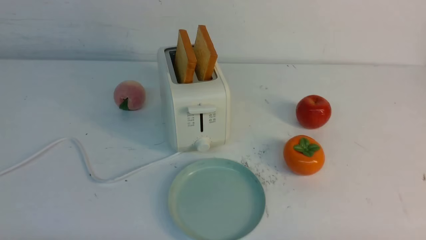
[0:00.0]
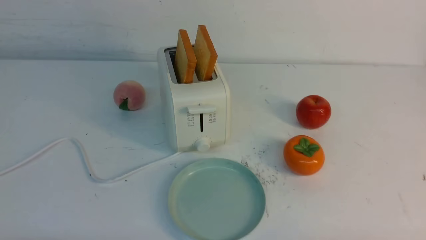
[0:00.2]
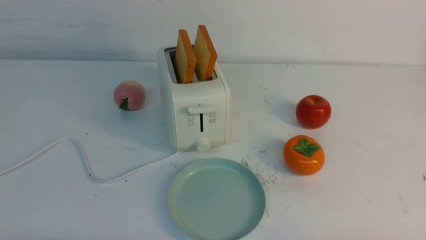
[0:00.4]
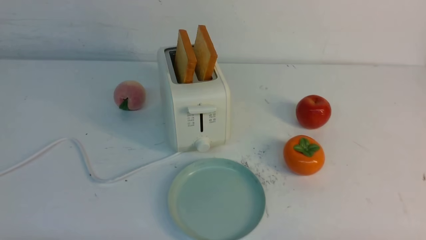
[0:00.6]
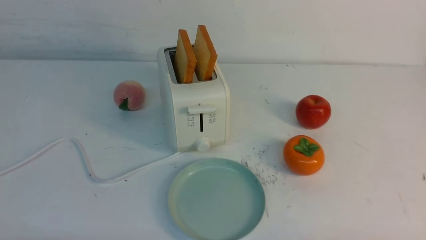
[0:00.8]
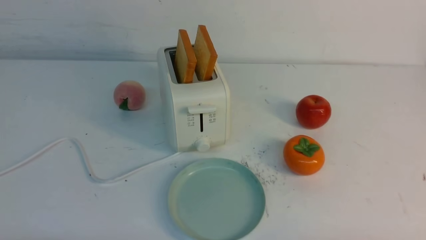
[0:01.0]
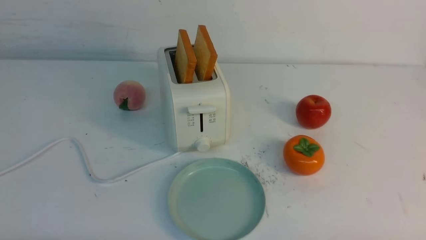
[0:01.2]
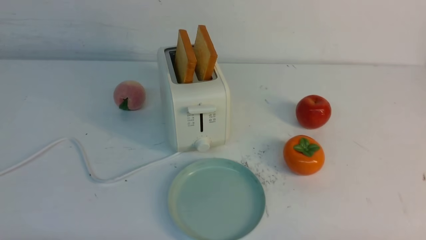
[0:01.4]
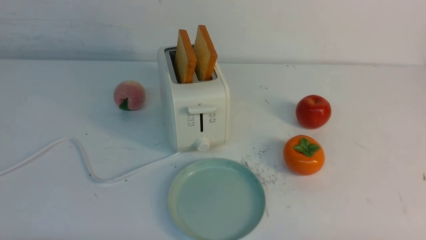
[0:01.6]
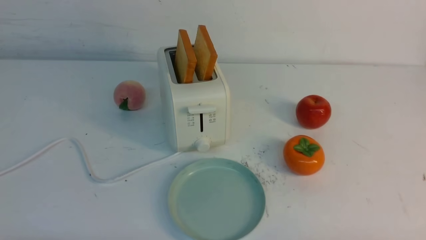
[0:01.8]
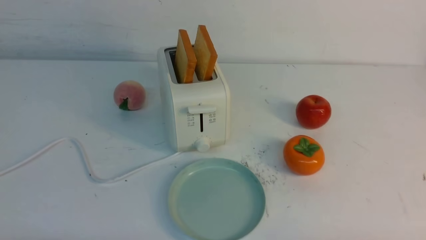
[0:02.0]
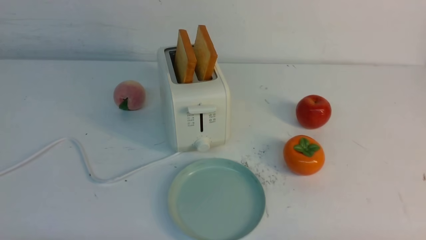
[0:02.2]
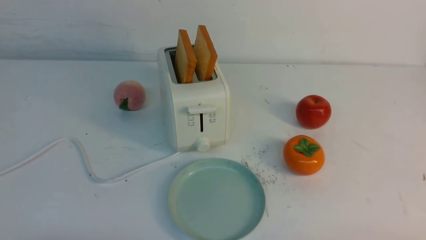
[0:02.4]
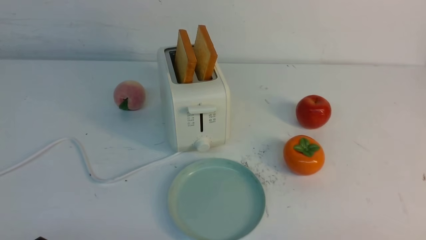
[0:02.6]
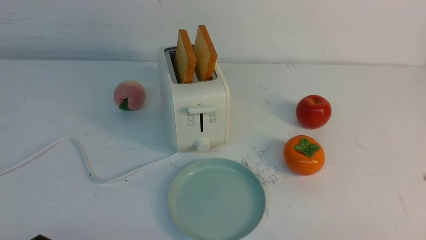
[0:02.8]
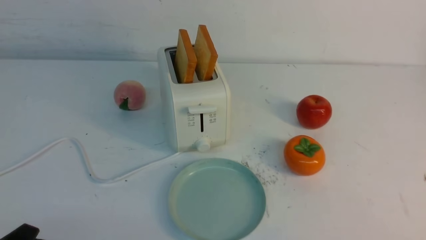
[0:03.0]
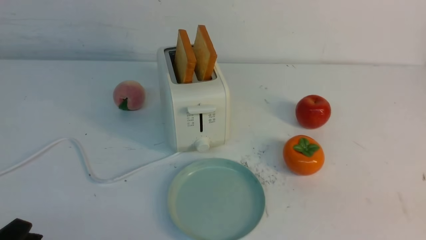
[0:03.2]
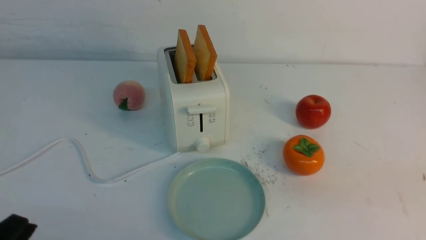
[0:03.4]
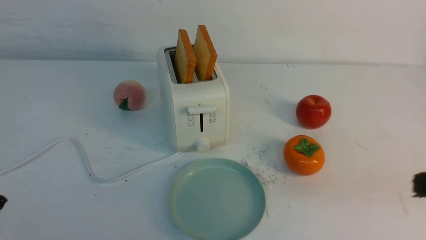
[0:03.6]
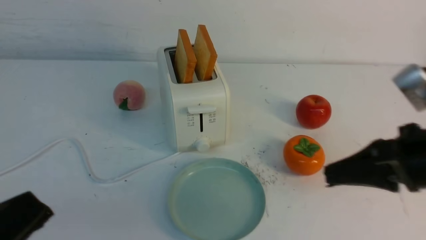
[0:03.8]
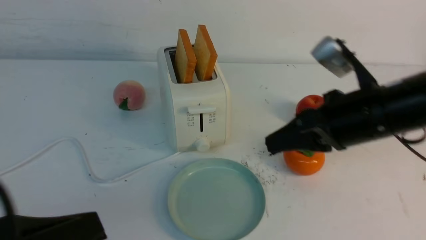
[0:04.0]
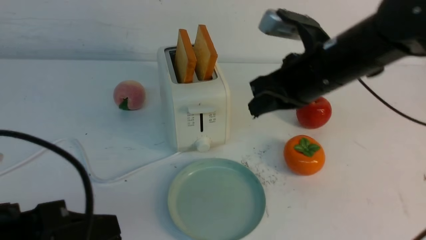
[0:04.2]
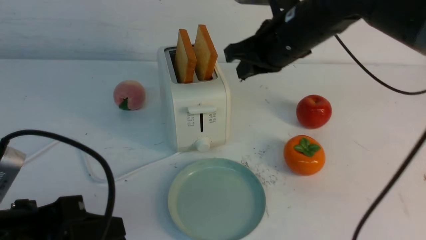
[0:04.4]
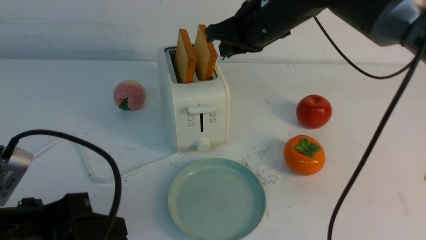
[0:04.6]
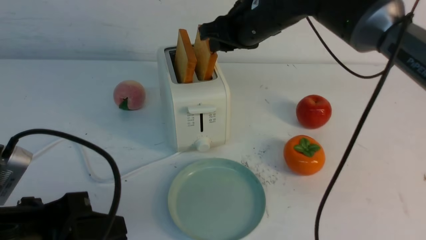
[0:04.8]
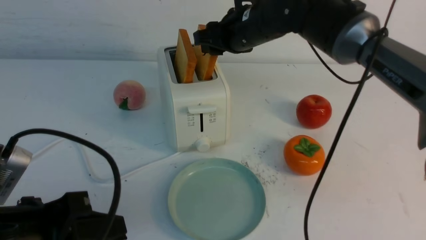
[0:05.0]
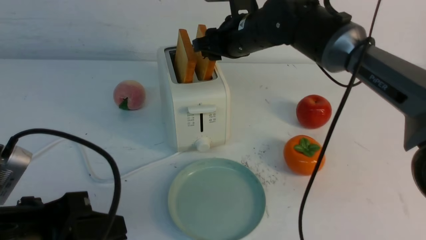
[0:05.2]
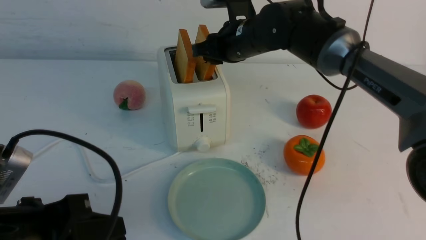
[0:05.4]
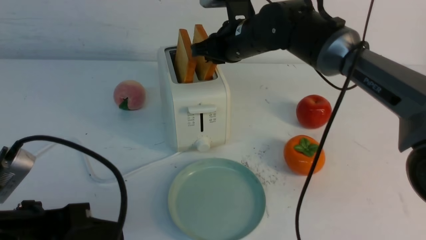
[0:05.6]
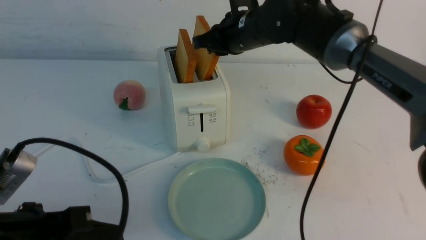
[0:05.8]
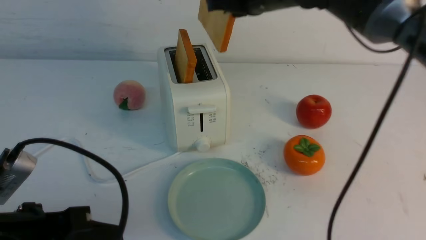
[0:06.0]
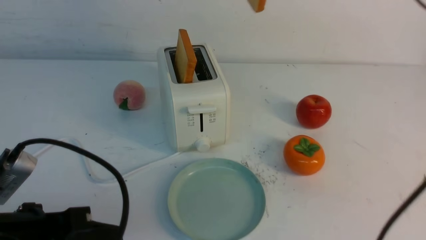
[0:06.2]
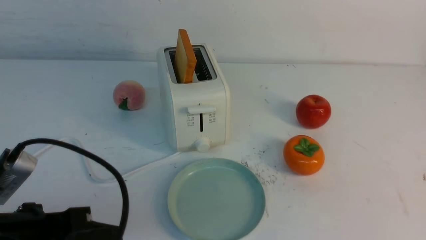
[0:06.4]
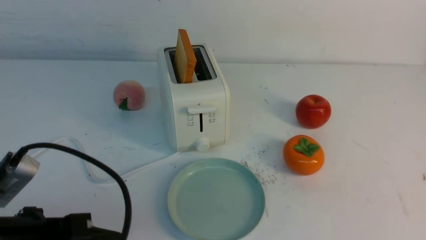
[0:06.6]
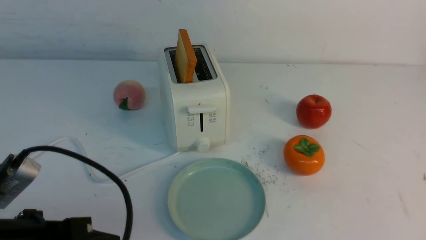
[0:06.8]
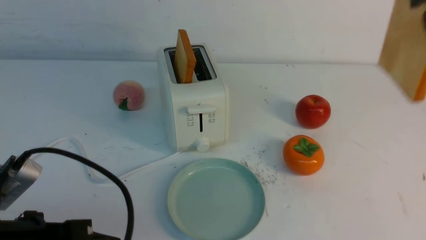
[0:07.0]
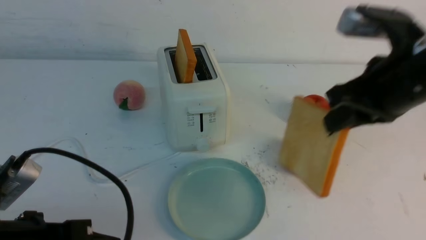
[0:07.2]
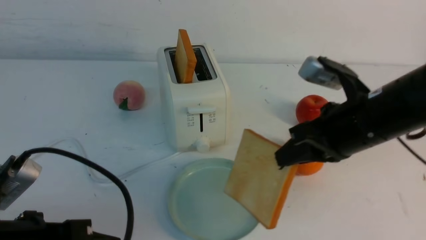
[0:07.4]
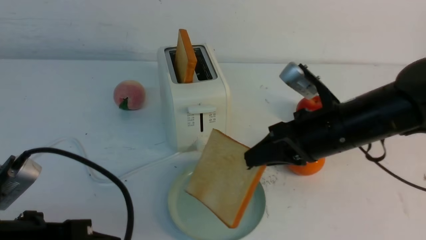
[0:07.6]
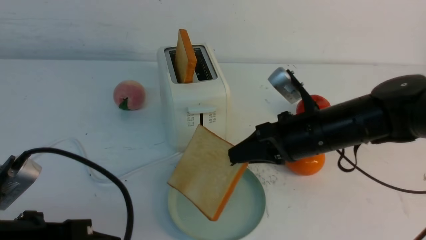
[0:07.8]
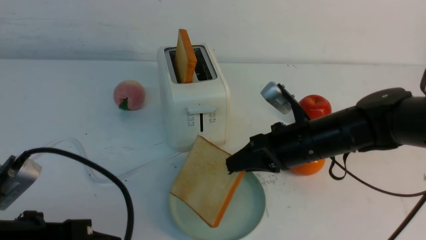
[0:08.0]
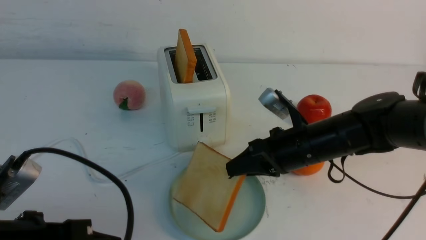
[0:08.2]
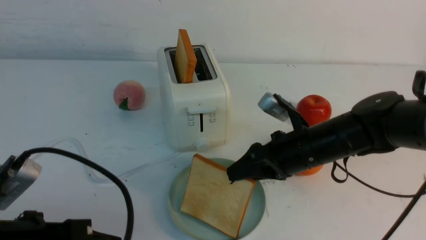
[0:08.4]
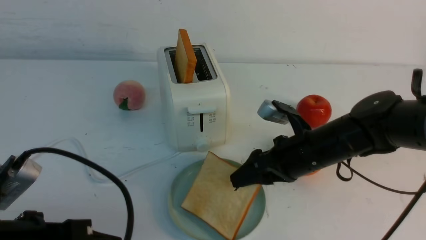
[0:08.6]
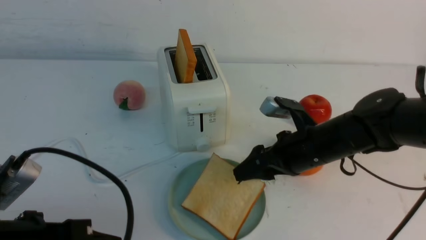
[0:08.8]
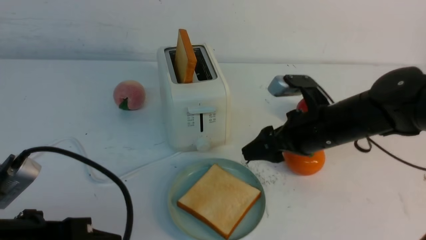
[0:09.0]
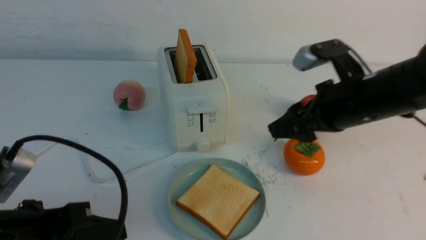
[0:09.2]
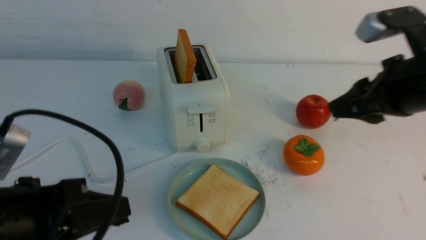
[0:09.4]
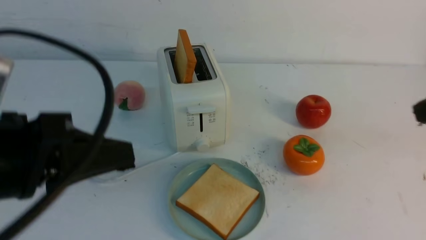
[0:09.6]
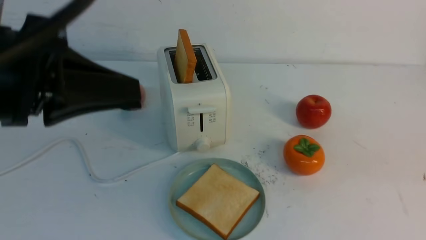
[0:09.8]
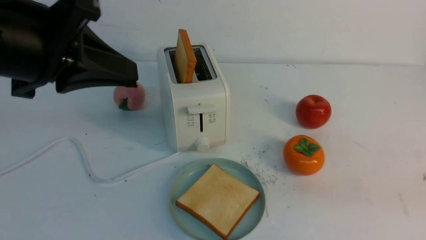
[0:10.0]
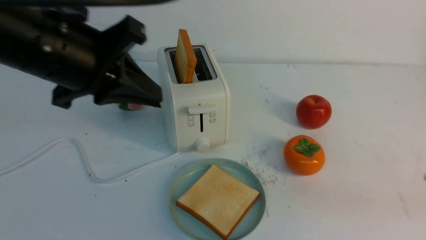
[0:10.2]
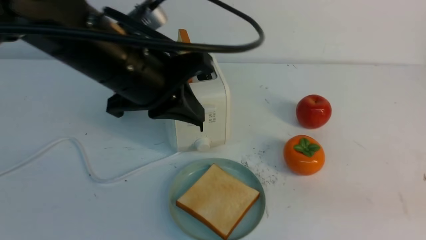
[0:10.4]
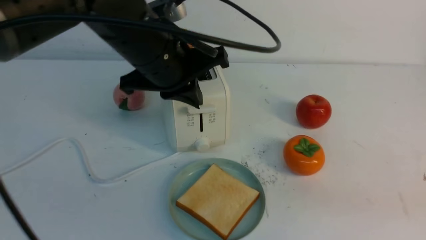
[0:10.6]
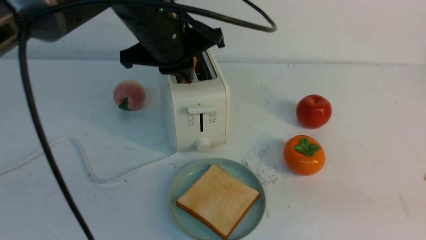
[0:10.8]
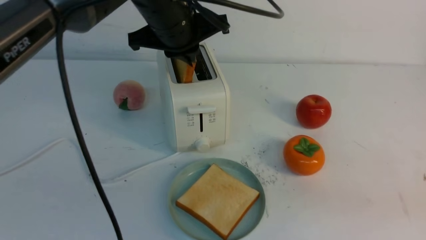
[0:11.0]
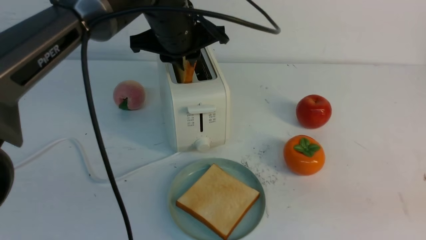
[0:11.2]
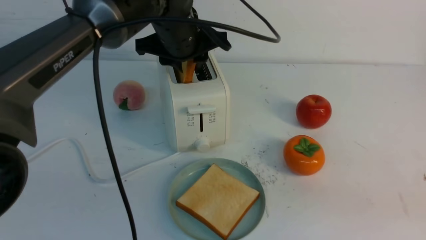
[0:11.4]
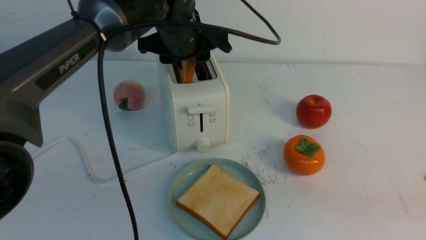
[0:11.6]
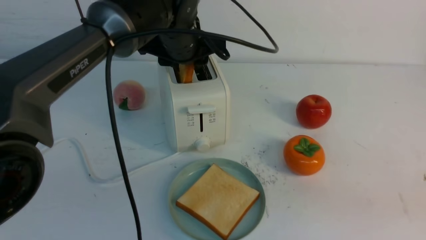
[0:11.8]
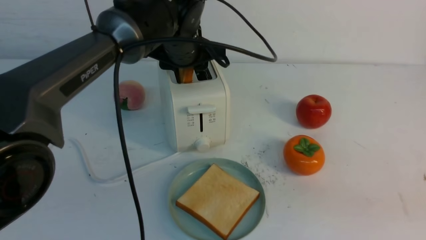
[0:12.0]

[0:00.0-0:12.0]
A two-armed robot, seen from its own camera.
Task of the whole recording: take toasted bread from bread machine on white table place on plate.
Step, 0:00.0 to 0:05.8: use the right arm to take out a slice of bread.
Step, 0:06.0 to 0:09.4: use the right arm to put a slice of bread into the plate.
0:00.0 to 0:01.6: Both grippers stay about where they are.
0:03.0 to 0:04.4: The left gripper travels upward and forward by some 10 cm, and closes up. The right gripper travels forward and to the left by approximately 40 cm.
0:04.4 to 0:06.0: The right gripper moves upward, approximately 5 cm, and opens, then closes once more.
0:06.0 to 0:07.6: The right gripper shifts roughly 20 cm downward, backward and to the right.
0:07.6 to 0:09.0: The right gripper opens.
0:09.0 to 0:10.4: The left gripper moves forward, upward and to the right, about 20 cm. Meanwhile the right gripper travels backward and to the right by about 25 cm, and closes up.
0:10.4 to 0:12.0: The left gripper travels forward by roughly 15 cm, and opens.

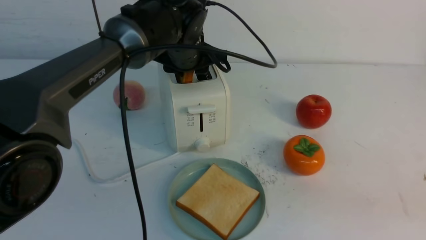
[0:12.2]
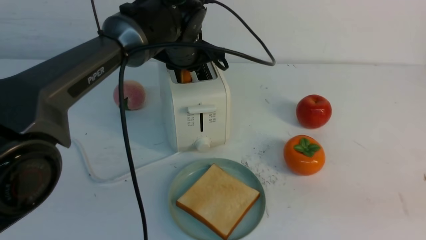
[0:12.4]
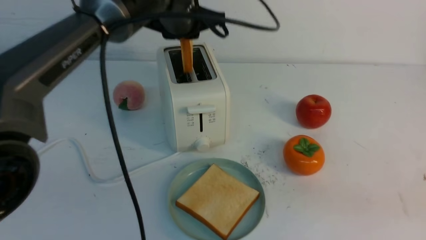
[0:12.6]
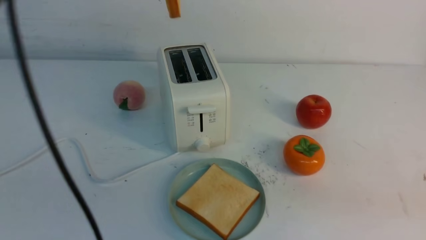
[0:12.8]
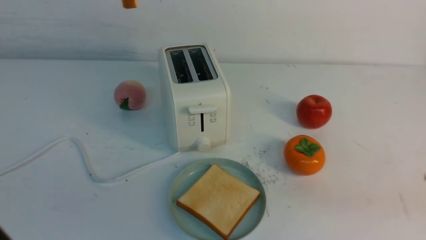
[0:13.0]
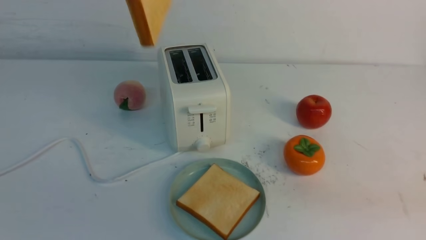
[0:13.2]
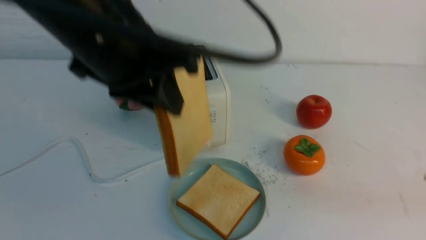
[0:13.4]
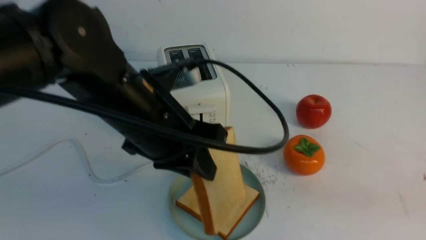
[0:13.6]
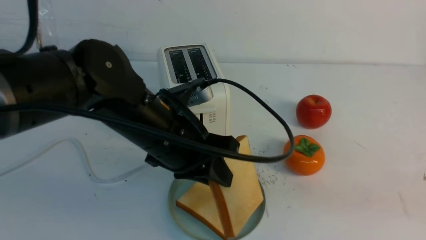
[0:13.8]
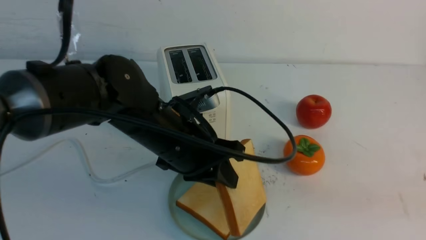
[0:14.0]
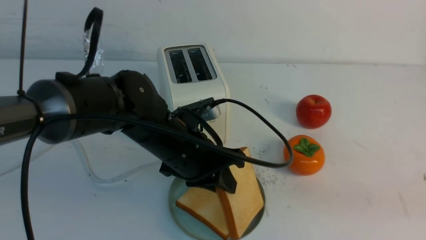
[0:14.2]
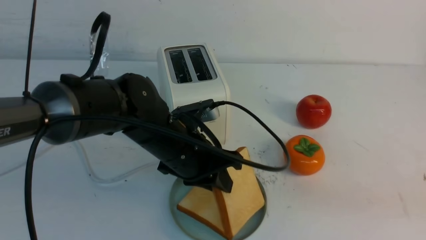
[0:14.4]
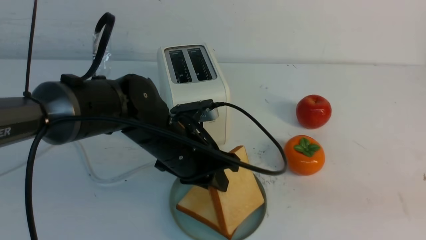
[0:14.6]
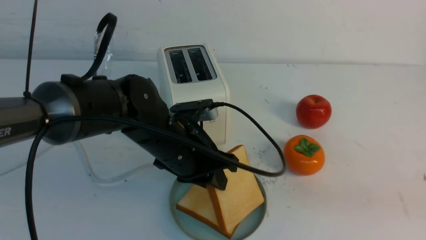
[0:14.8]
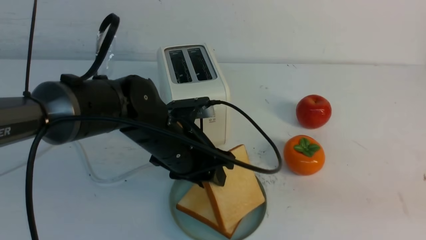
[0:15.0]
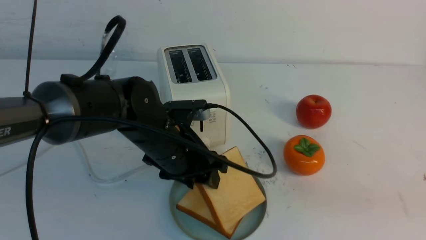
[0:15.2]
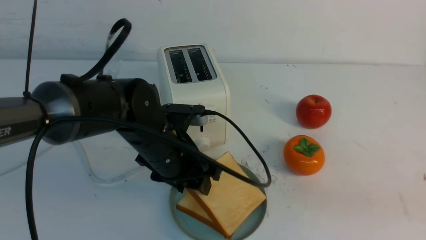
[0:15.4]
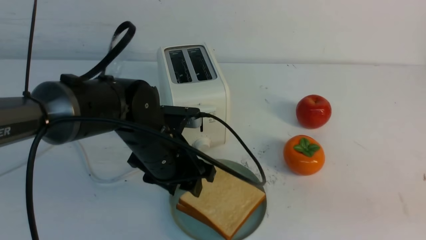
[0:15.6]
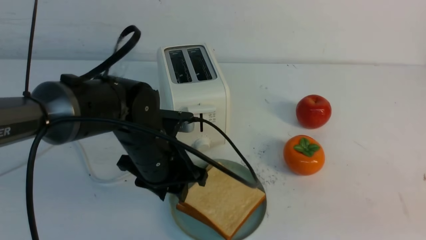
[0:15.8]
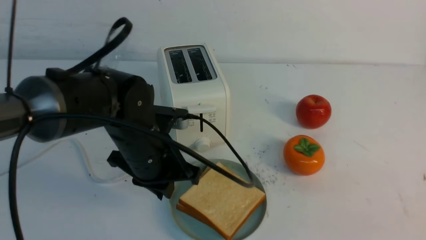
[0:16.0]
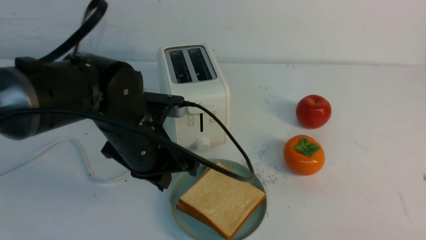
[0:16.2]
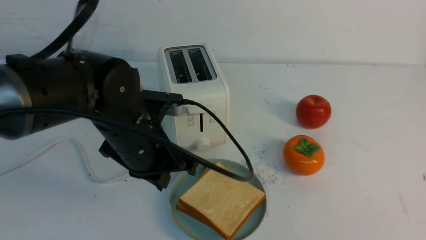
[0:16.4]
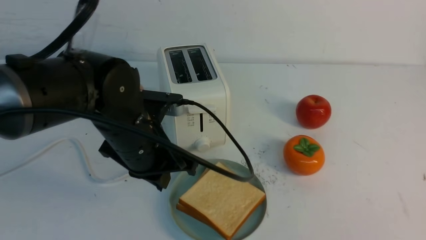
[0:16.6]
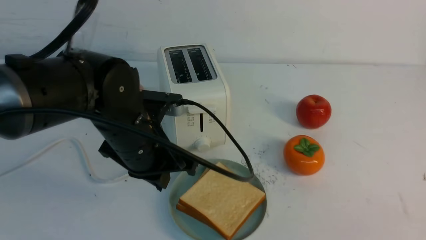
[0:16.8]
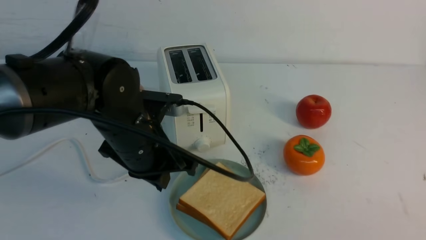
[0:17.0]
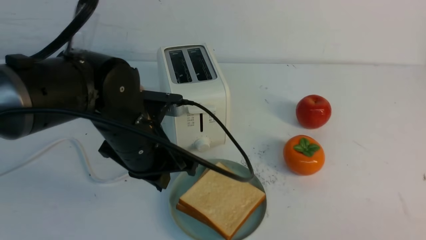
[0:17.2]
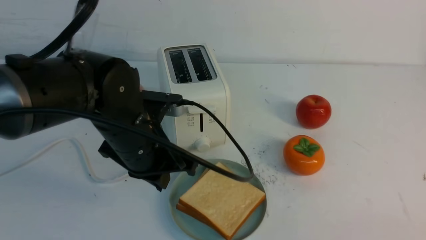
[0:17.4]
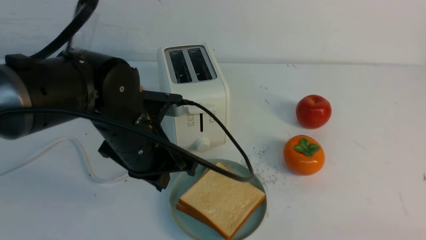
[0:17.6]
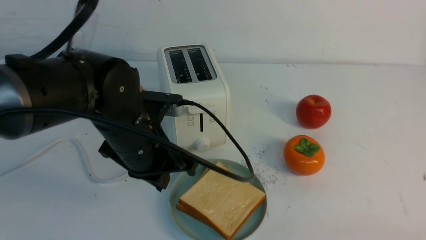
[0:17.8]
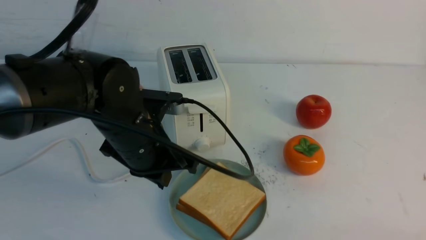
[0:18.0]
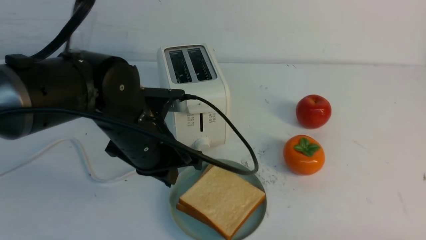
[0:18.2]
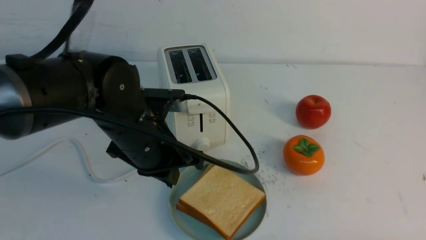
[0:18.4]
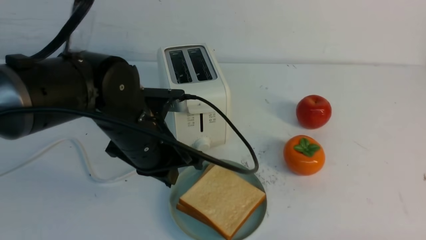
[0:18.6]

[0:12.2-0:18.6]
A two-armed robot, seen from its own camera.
Task of the whole recording: take toasted bread from bread machine on white table place on plate.
Step, 0:12.8 to 0:15.4: use the left arm to put a slice of bread into the empty plate.
0:12.2 to 0:13.8: The left gripper shifts roughly 15 cm backward, and goes upward and returns, some 20 cm each way.
0:13.8 to 0:15.4: The left gripper travels downward by some 5 cm, and opens its fingers.
0:15.4 to 0:17.0: The left gripper ends up some 5 cm from where it was, and closes its fingers. Meanwhile the right gripper is displaced backward and downward by roughly 10 cm.
0:17.0 to 0:18.6: The right gripper shifts about 10 cm downward.
